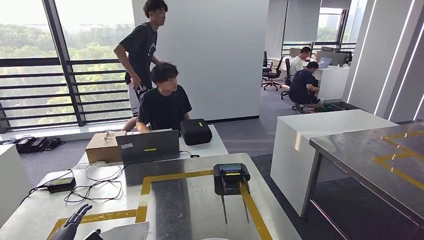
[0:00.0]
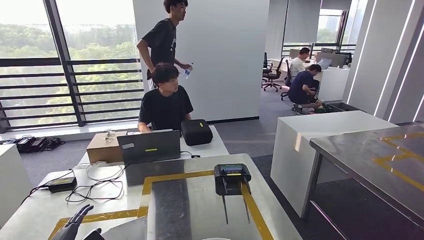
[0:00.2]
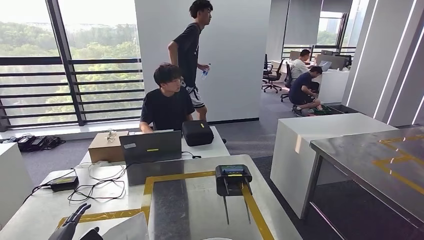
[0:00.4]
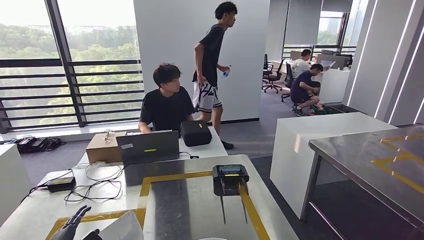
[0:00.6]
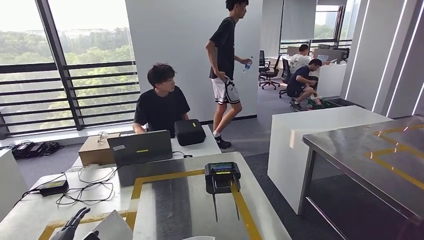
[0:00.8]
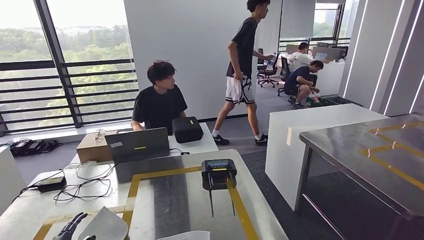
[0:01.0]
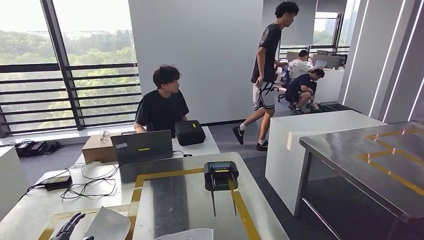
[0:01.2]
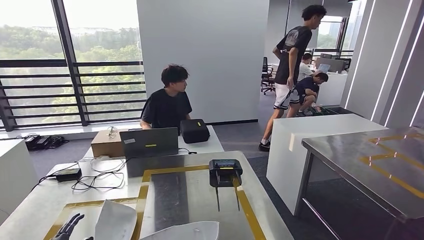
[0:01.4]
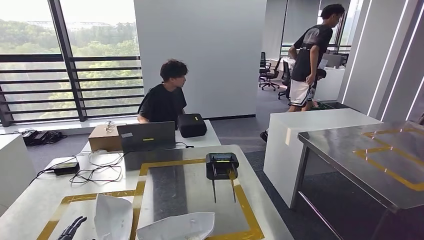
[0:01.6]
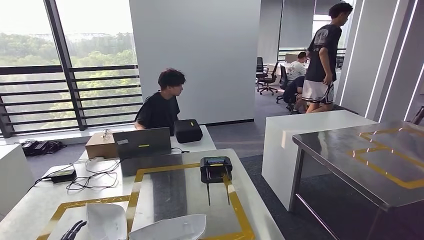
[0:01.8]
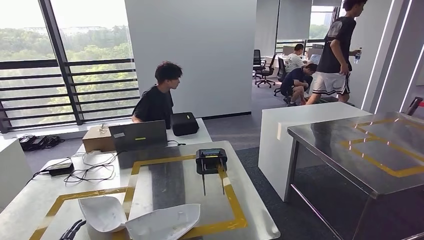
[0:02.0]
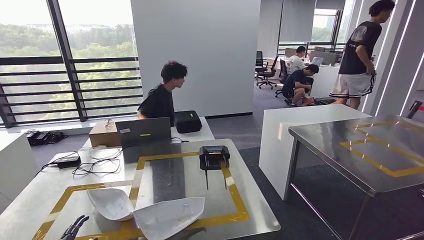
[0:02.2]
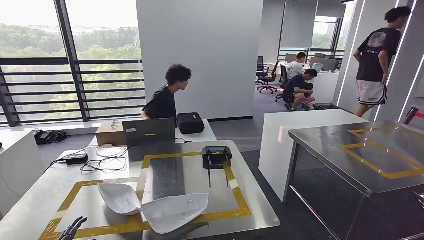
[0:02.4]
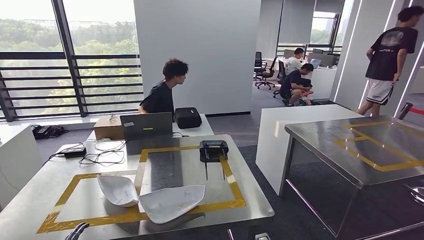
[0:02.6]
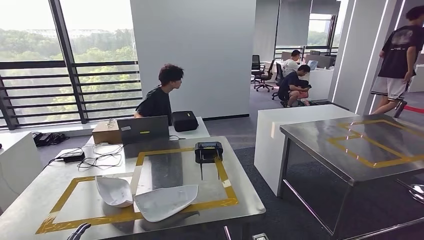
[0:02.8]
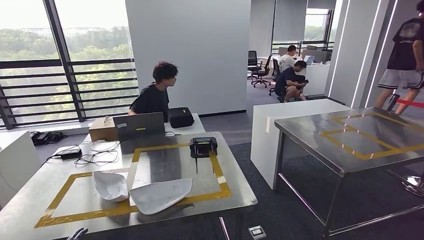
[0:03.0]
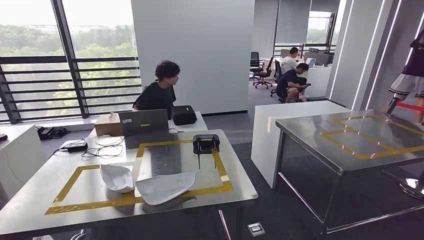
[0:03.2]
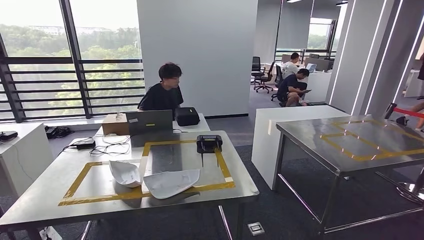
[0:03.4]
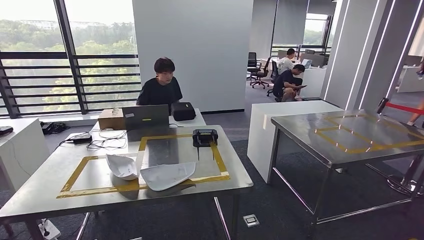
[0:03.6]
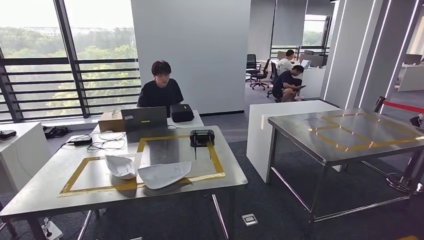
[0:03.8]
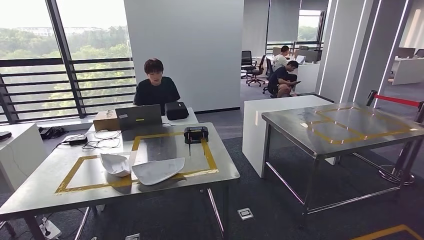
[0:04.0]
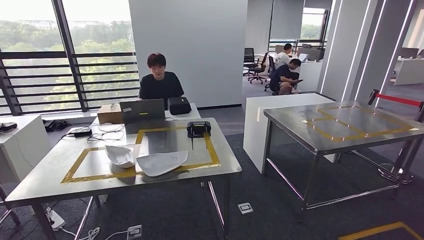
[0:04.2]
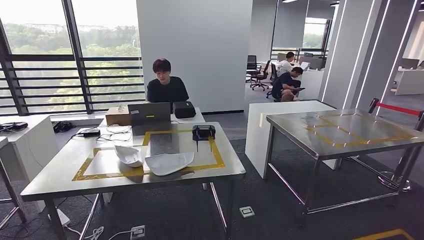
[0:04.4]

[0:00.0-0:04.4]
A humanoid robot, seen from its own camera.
Step, 0:00.0 to 0:04.2: Move to the initial position of the workbench.
